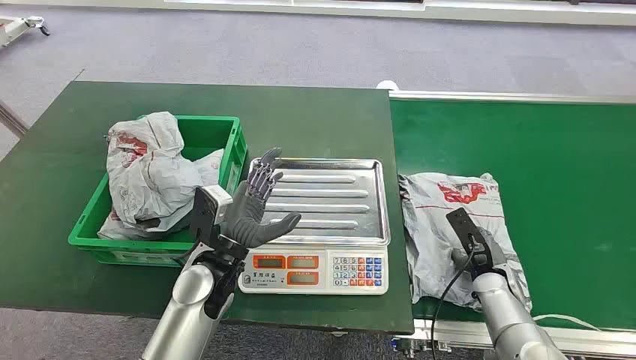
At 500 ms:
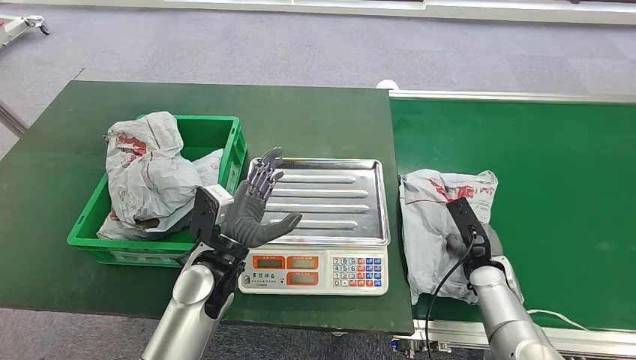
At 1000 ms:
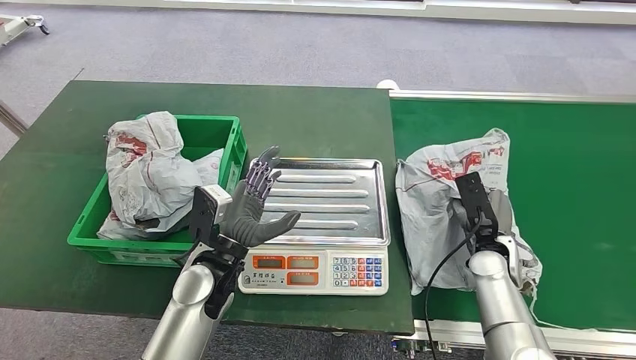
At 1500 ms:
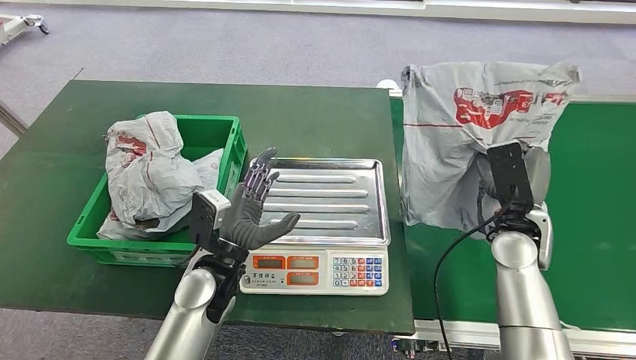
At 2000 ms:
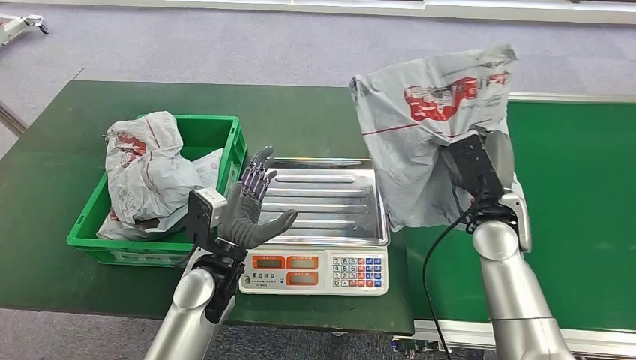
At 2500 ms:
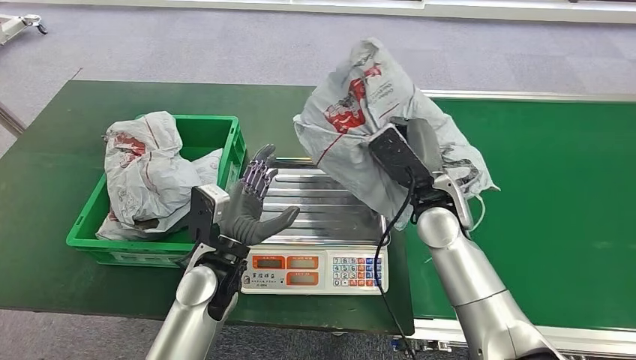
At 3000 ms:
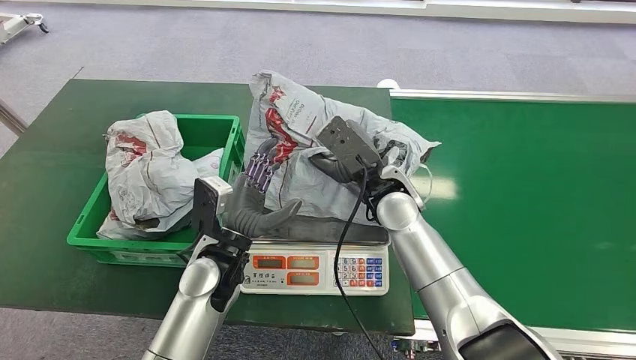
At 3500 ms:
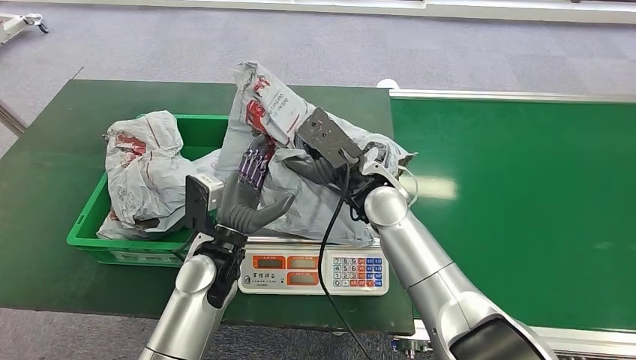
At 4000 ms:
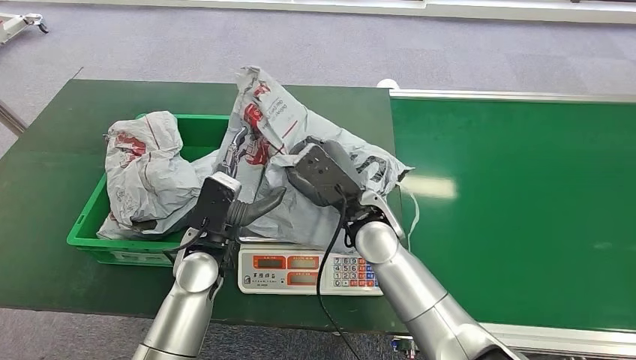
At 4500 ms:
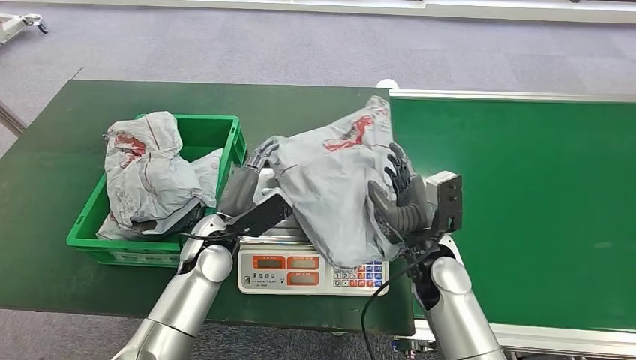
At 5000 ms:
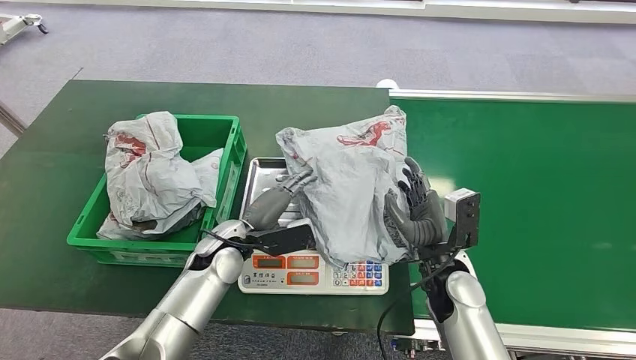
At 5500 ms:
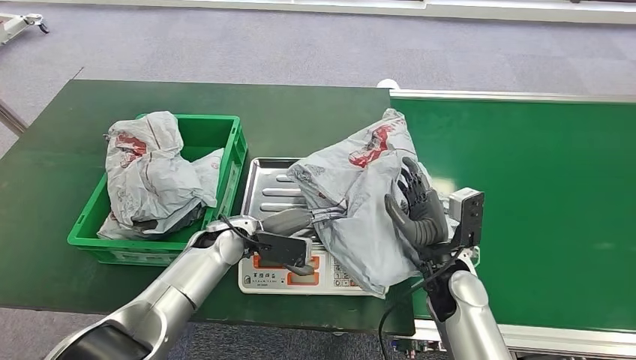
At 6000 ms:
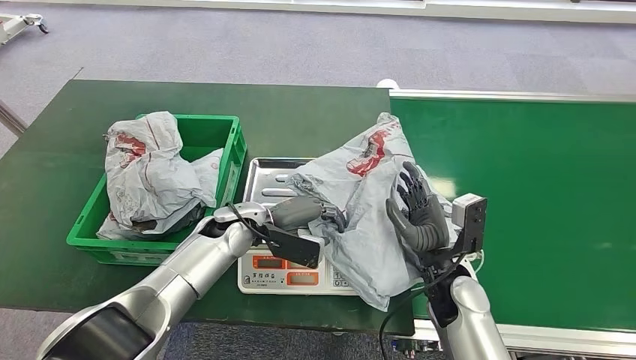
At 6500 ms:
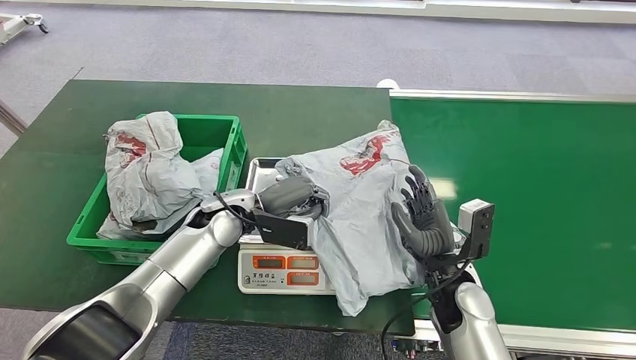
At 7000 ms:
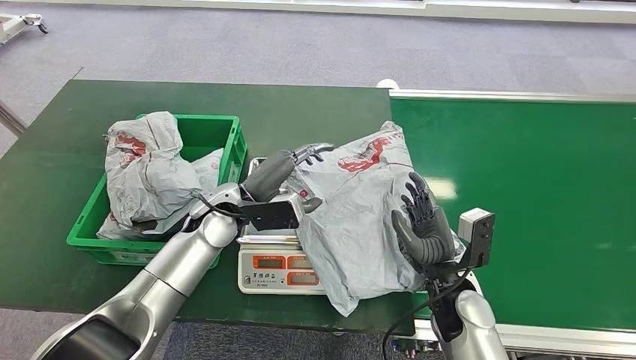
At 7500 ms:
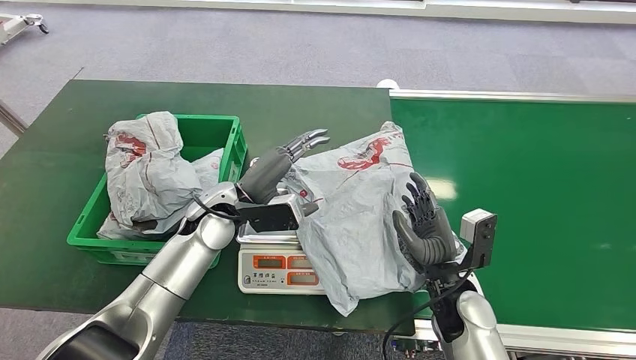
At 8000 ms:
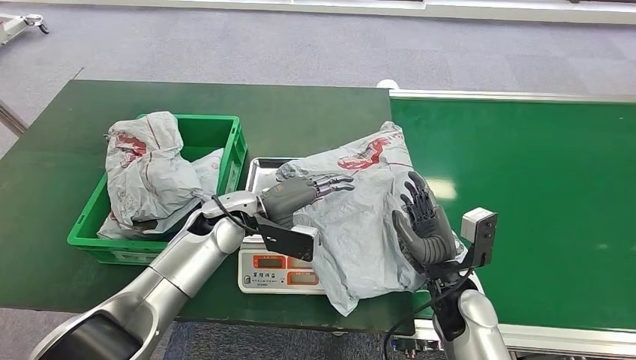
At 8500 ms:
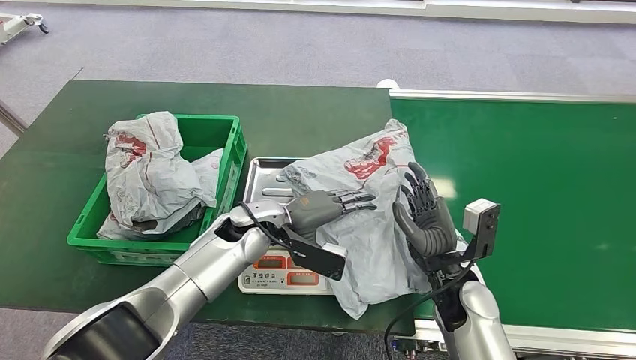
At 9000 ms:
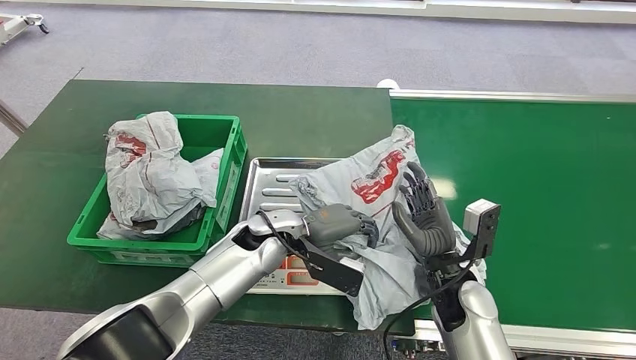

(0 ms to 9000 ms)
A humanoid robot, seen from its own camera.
Step, 0 ms - 1000 ms: Pick up the package from the conveyor belt.
Step, 2000 ms - 4500 ms: Place the package onto the inbound machine.
4500 ms - 7000 ms: The left hand heads forward, covering approximately 5 cm. The right hand shifts by approximately 5 cm.
7000 ms - 9000 ms: The left hand shifts some 10 cm to the right.

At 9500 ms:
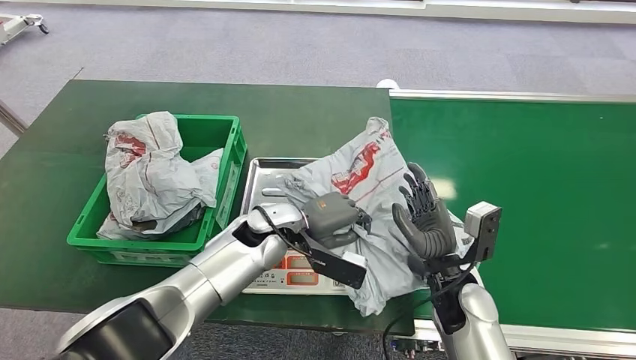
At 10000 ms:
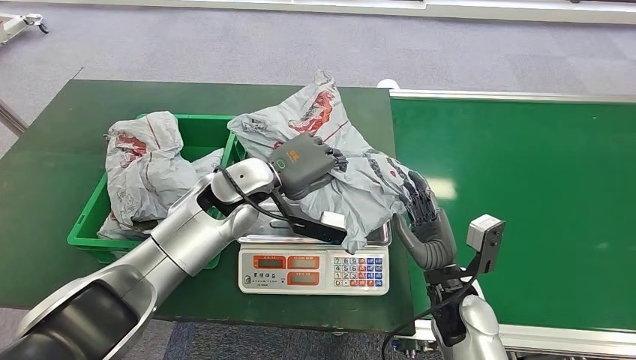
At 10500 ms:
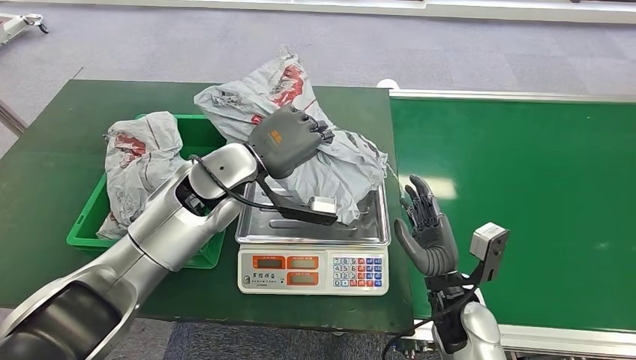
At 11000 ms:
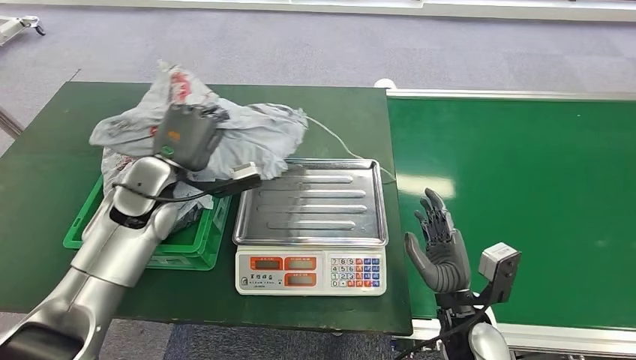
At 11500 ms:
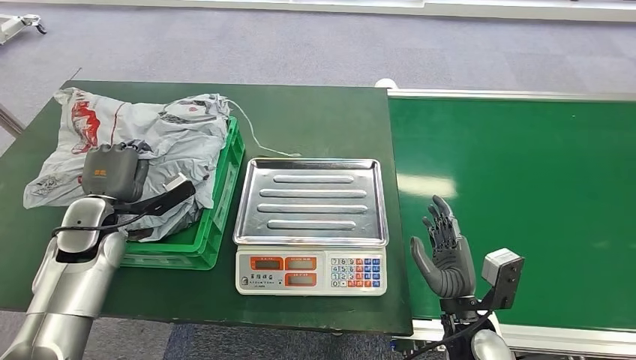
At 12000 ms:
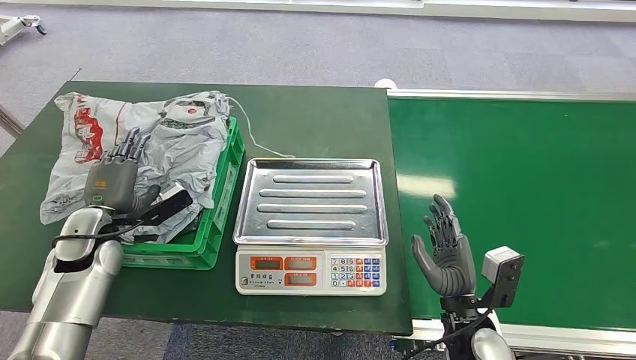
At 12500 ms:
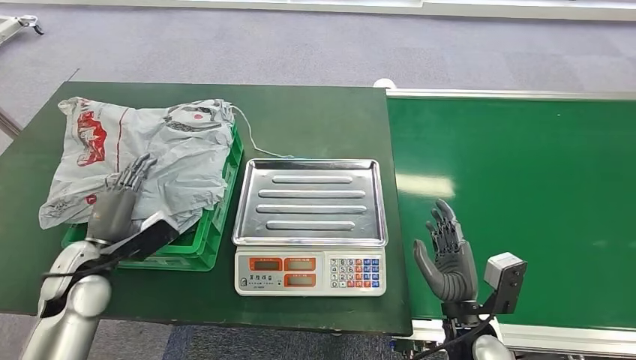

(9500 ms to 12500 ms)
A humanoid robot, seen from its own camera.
Step, 10500 ms - 12500 ms: Place the package into the parcel locker.
